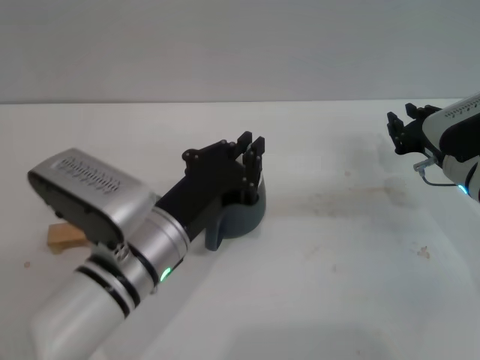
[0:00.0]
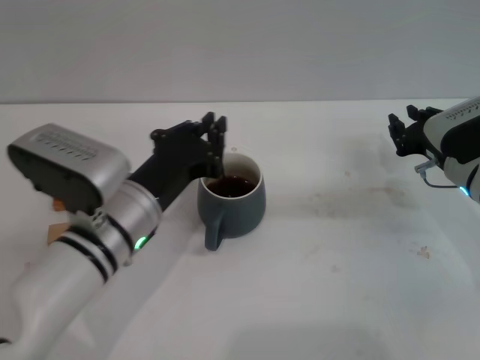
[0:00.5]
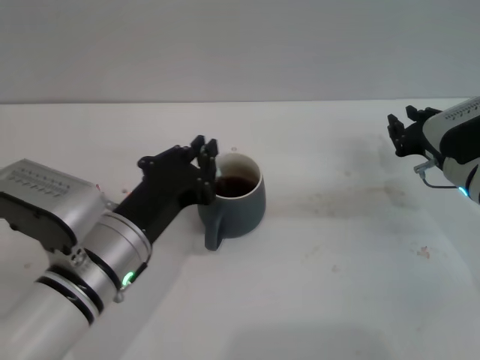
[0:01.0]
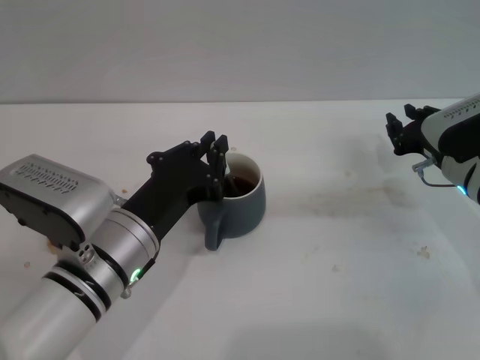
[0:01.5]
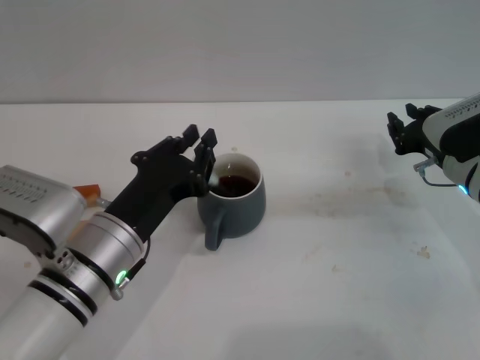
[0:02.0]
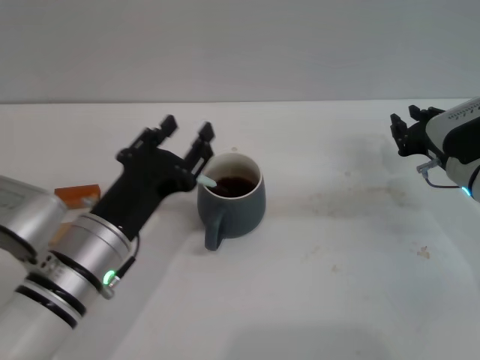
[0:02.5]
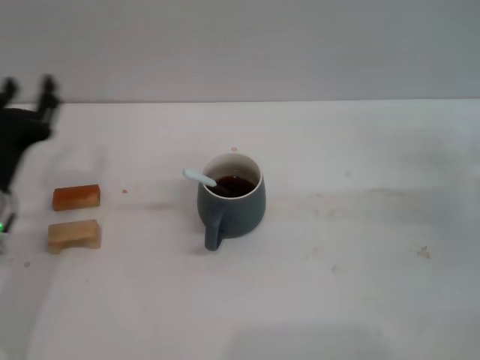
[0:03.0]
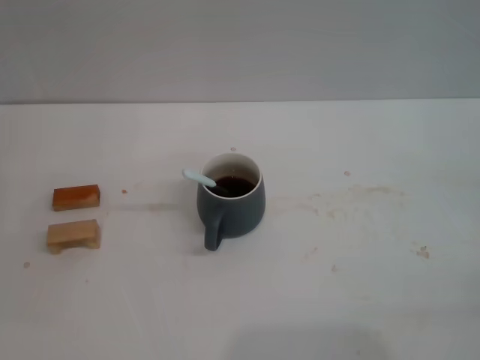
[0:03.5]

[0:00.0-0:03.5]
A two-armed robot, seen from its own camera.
Task of the whole recording: Move the grey cup to the center, lift the blue spoon, stir it three times in the cup, and put the spoon into the cup.
Step, 0:00.0 to 0:02.0: Stir the coffee in the cup with the left gripper.
0:00.0 to 0:02.0: The grippers move only a little.
0:02.0 to 0:03.5: The left gripper heads to the left, covering roughly 20 cm, and opens, while the right gripper travels to the right and backward by some 25 cm.

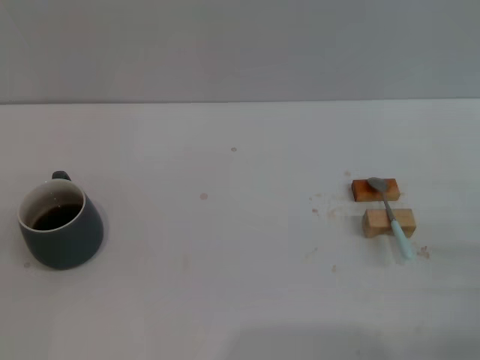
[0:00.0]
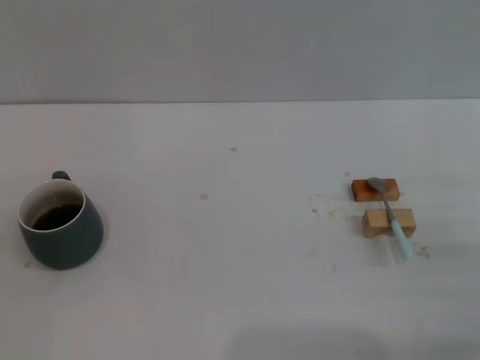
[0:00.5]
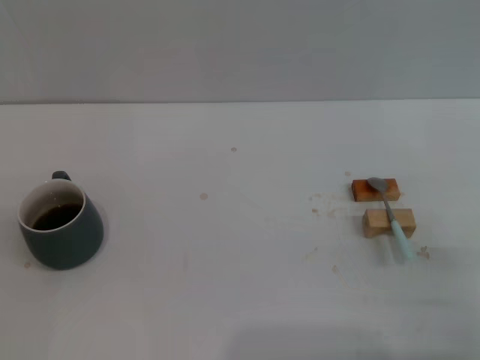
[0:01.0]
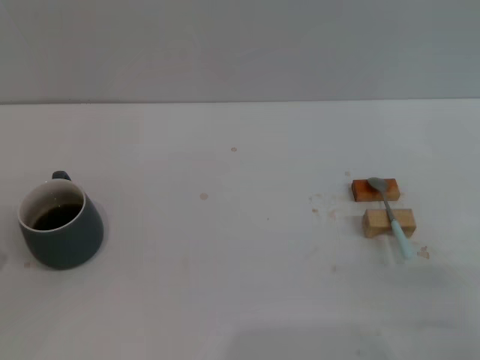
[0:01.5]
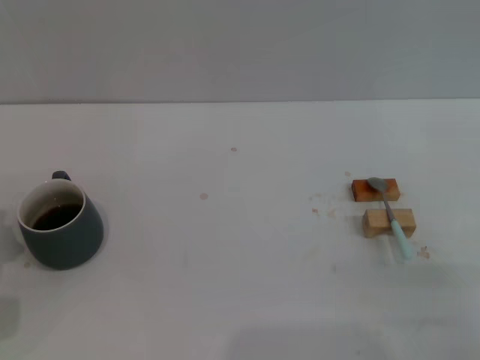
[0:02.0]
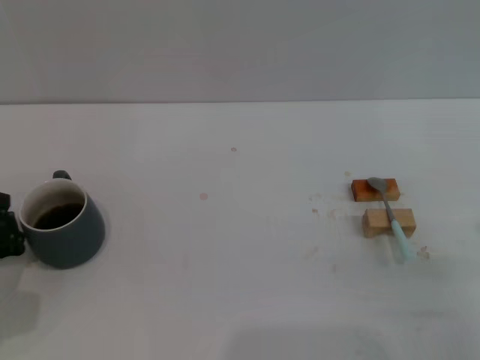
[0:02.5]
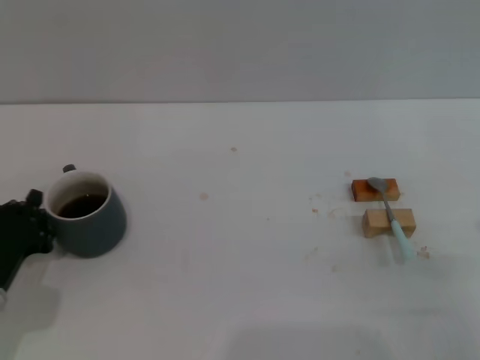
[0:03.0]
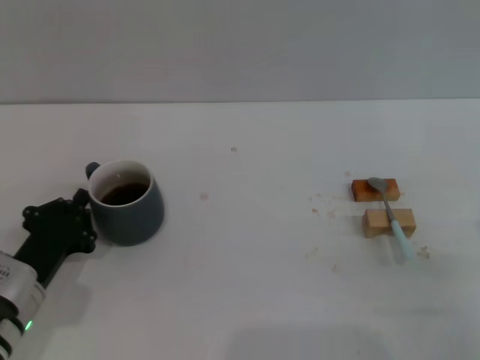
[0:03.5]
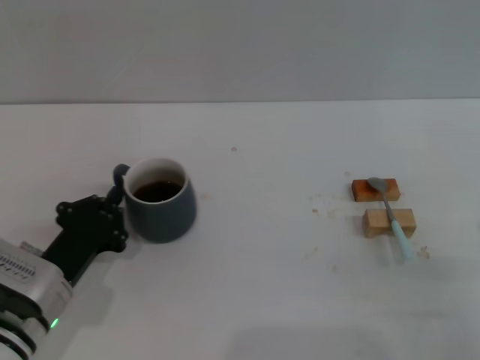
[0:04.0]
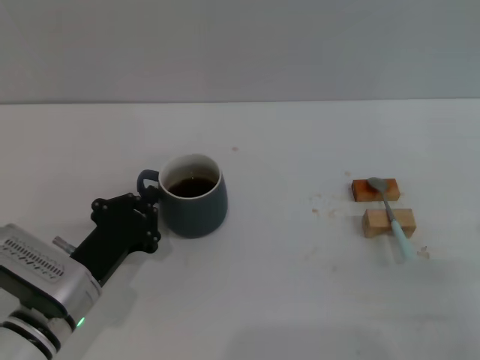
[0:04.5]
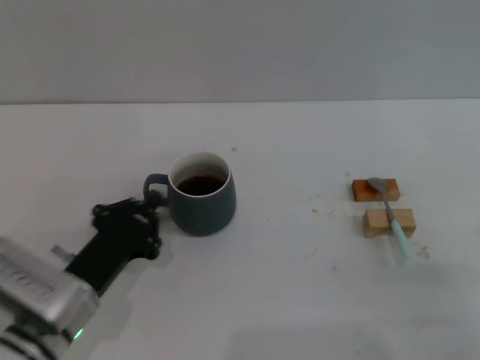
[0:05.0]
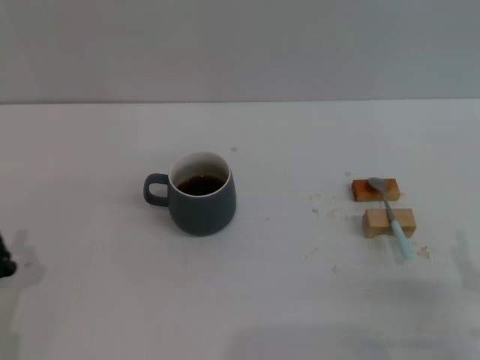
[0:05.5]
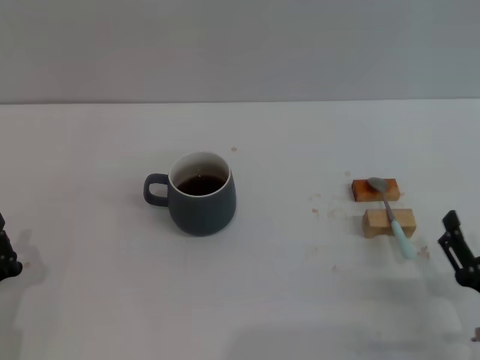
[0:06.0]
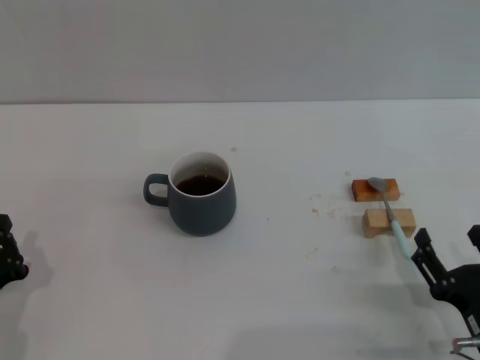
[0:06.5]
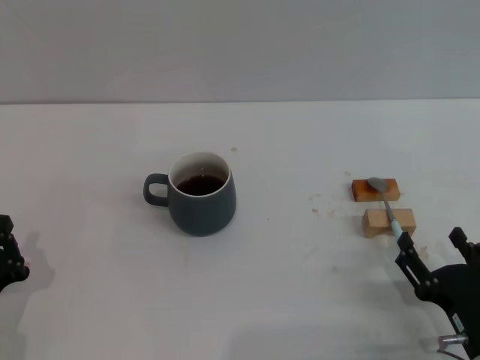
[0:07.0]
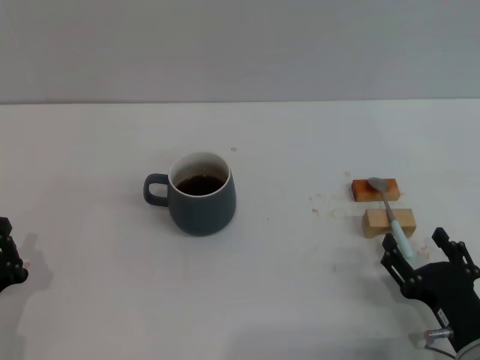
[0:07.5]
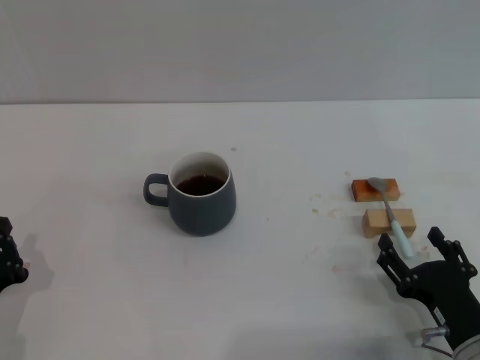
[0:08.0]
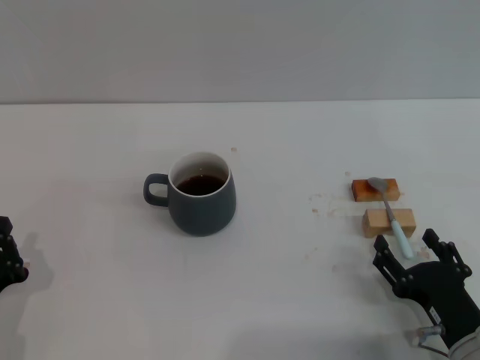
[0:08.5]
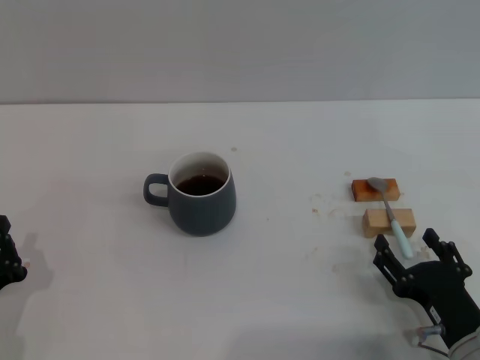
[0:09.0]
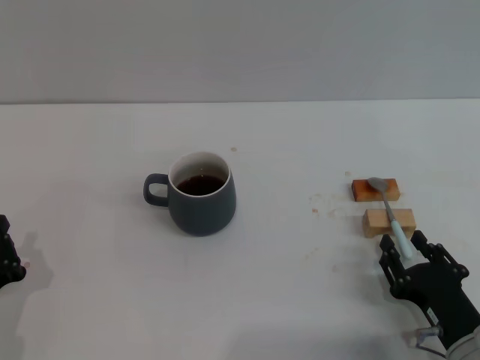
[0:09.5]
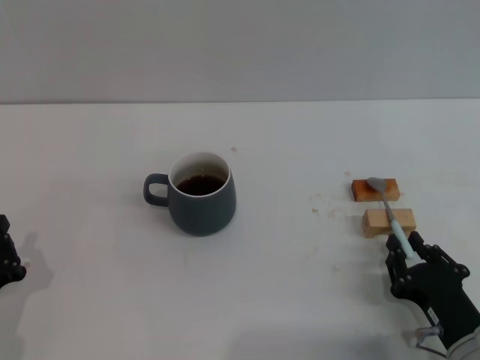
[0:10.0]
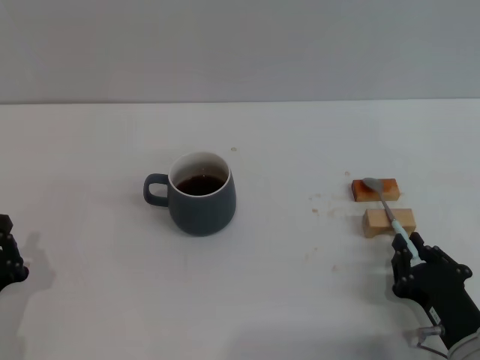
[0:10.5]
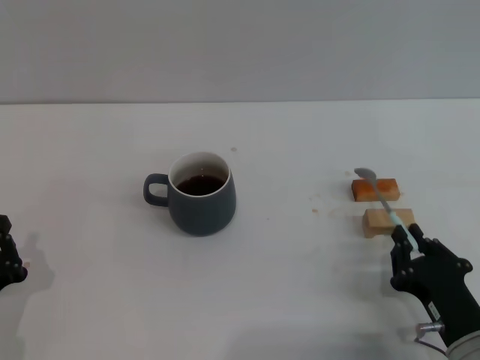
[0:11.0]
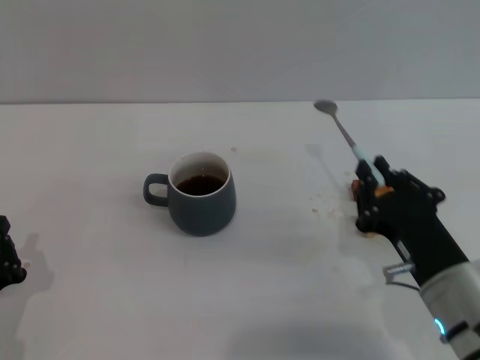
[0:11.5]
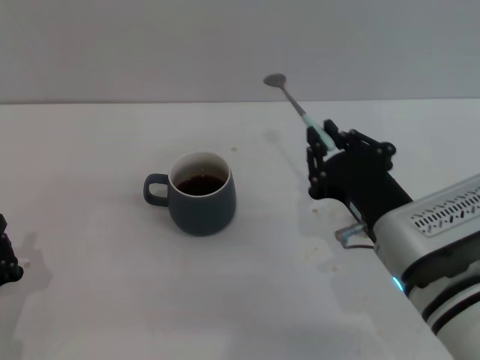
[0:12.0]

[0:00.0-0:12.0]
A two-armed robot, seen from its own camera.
Task of the whole recording: Move the grey cup to the center, lift the blue spoon, stir it three times in the cup, and put the spoon into the cup.
Step, 0:00.0 to 0:05.0: Move the cup with coffee to the center of view with the left gripper.
Step, 0:05.5 to 0:11.5: Pick up the spoon with the right gripper.
0:02.0 to 0:04.0: The left gripper is displaced to the right by approximately 10 cm.
0:04.0 to 0:06.0: The left gripper shifts roughly 10 cm backward and to the left, while the right gripper moves some 5 cm.
0:06.0 to 0:08.0: There are only small adjustments of the grippers.
0:08.0 to 0:10.0: The right gripper closes up.
0:10.0 to 0:12.0: The right gripper heads upward, to the left and forward, covering roughly 15 cm.

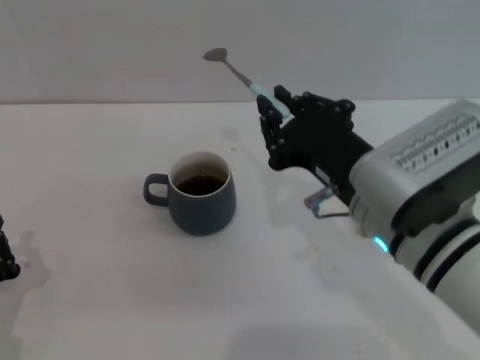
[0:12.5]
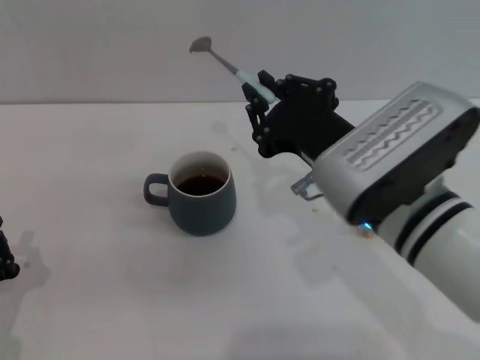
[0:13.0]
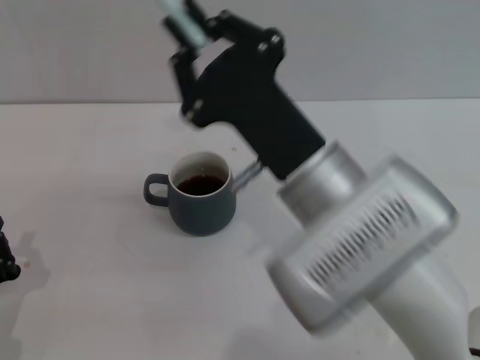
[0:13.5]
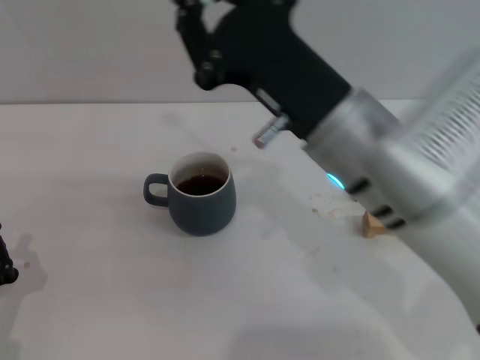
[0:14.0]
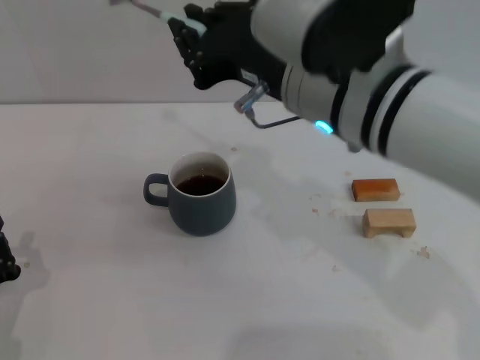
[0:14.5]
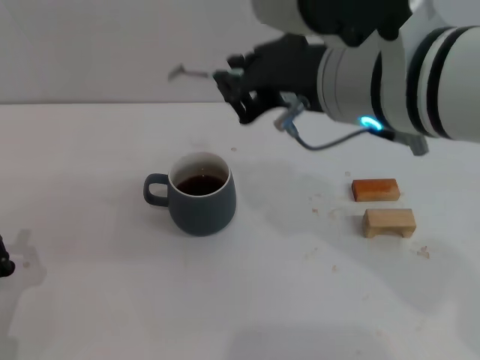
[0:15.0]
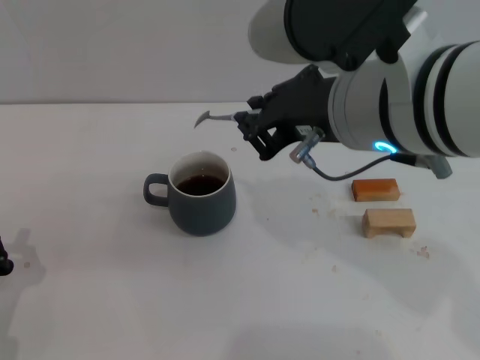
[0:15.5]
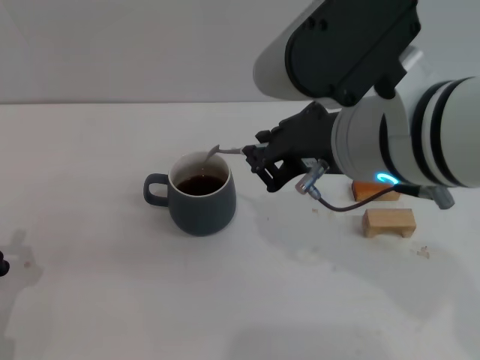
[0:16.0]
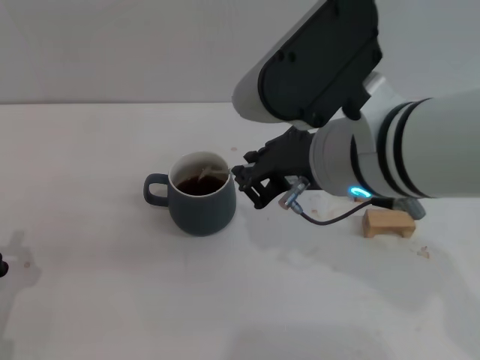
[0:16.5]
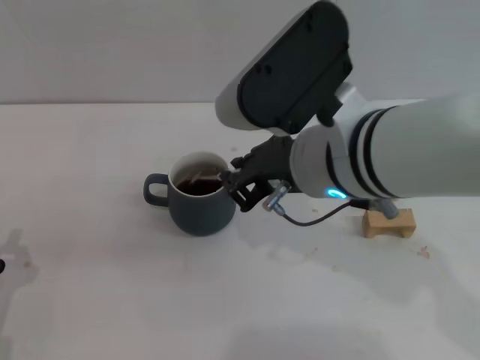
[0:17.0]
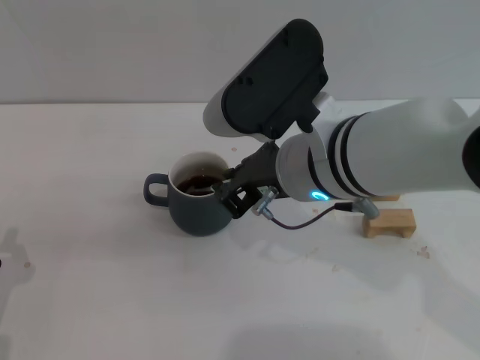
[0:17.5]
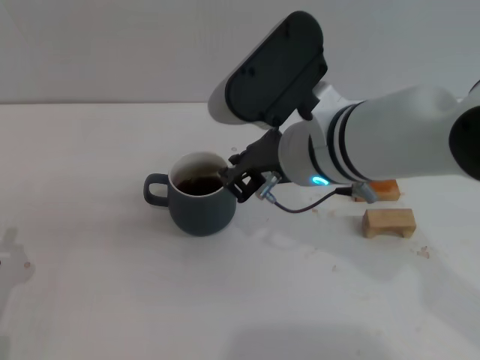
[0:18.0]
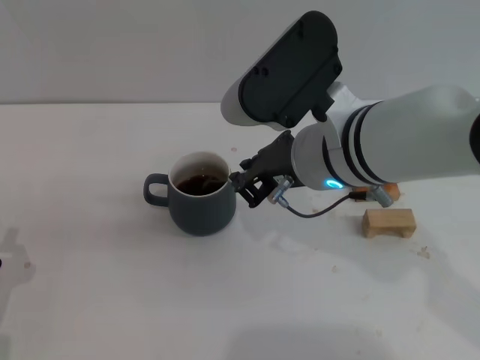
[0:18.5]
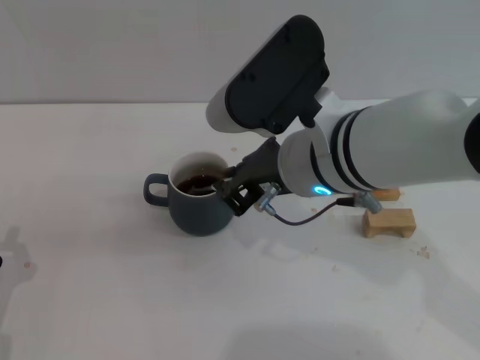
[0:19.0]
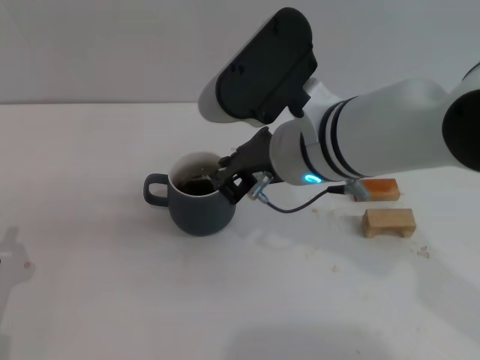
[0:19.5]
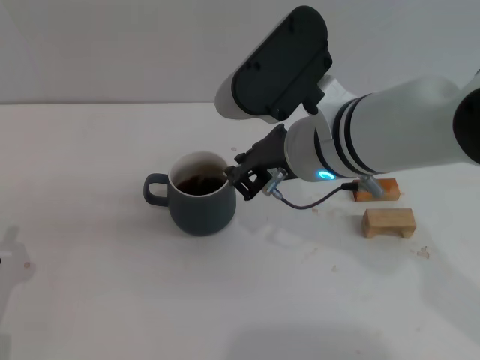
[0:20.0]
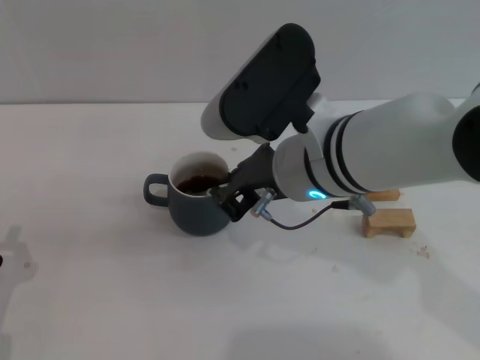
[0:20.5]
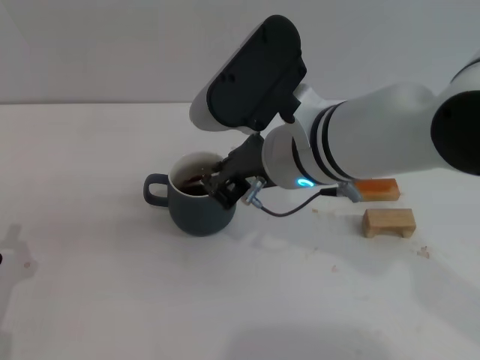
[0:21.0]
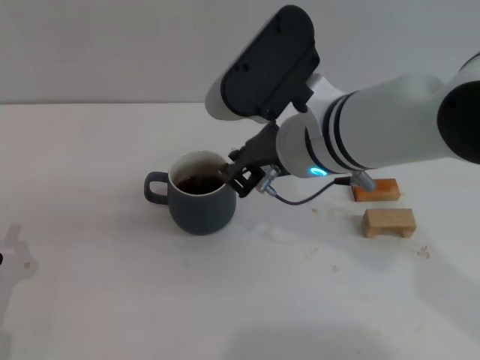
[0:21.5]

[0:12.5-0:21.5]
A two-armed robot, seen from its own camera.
Task of the whole recording: Move the grey cup to the center, lift the blue spoon, stir it three times in the cup, and put the spoon into the cup.
0:12.5 to 0:14.5: The right gripper goes some 10 cm upward.
0:17.0 to 0:19.5: The grippers stay close to where they were, moving slightly.
0:19.5 to 0:21.5: Both grippers stay about where they are.

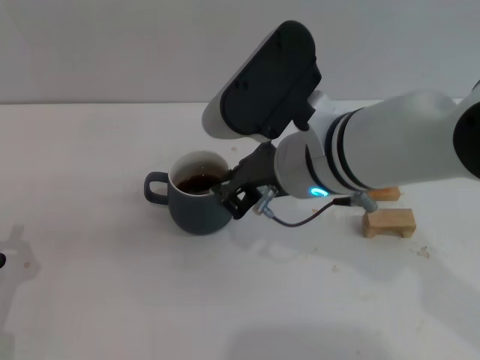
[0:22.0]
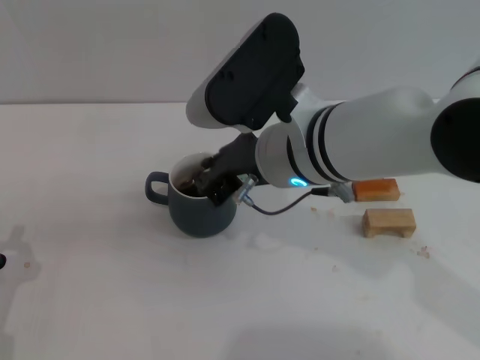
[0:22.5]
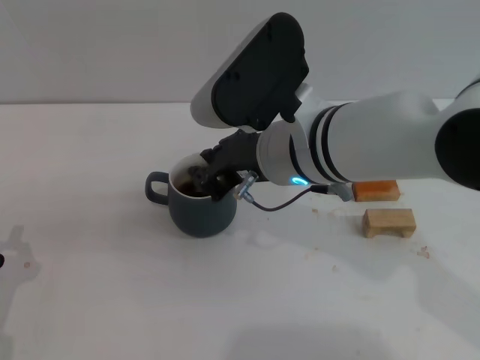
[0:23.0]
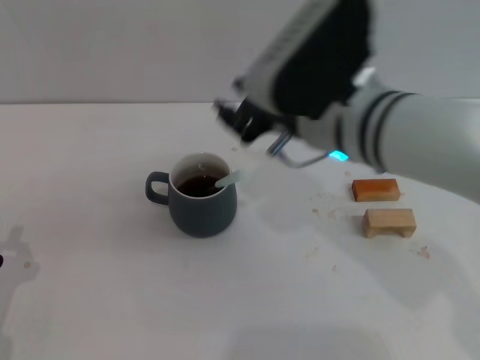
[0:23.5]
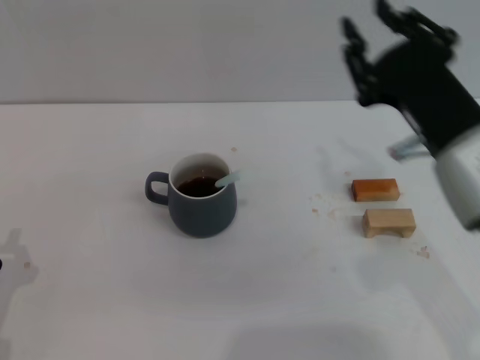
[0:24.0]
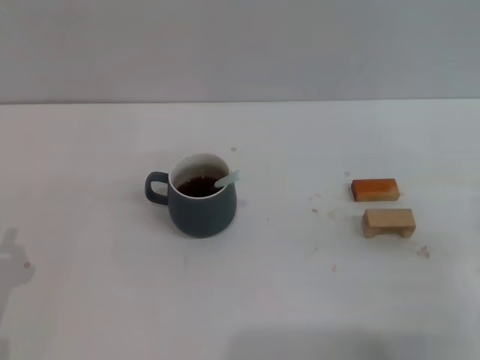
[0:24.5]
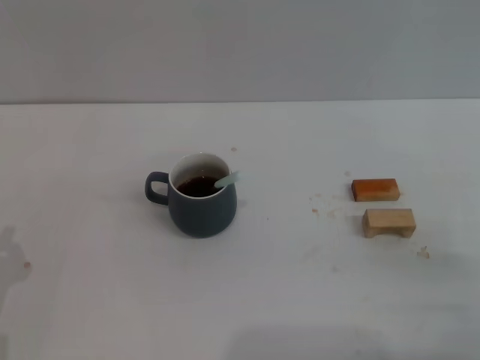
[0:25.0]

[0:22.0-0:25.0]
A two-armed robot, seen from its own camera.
Task of the whole recording: Move the grey cup to the center, lift the blue spoon, stir it three times in the cup, and put the spoon into the cup.
0:23.5 to 0:25.0: The right gripper is displaced to the right, downward and backward by some 30 cm, and opens up.
